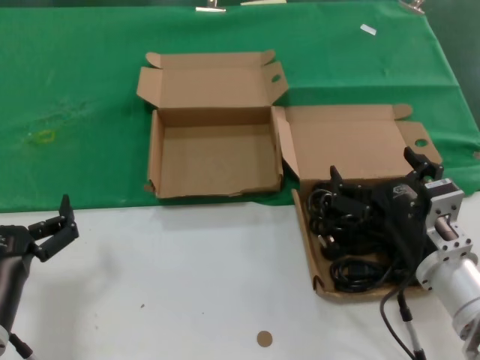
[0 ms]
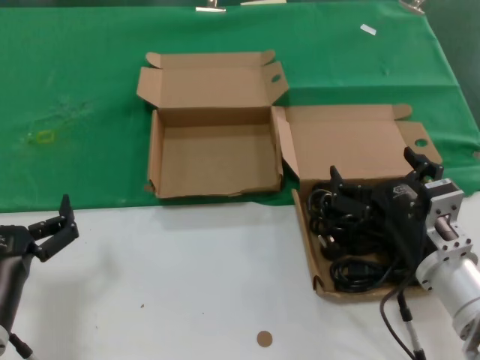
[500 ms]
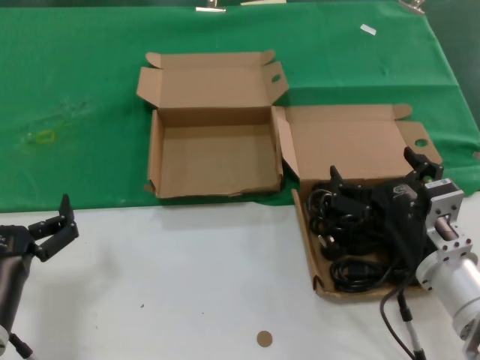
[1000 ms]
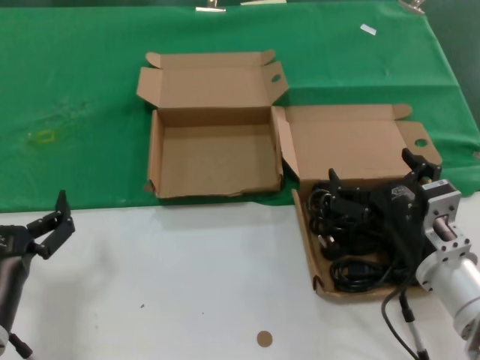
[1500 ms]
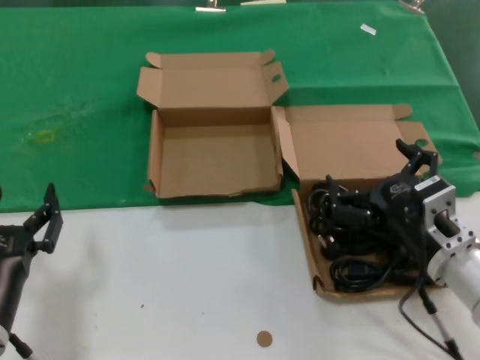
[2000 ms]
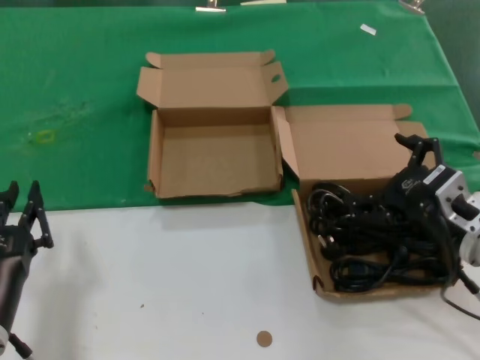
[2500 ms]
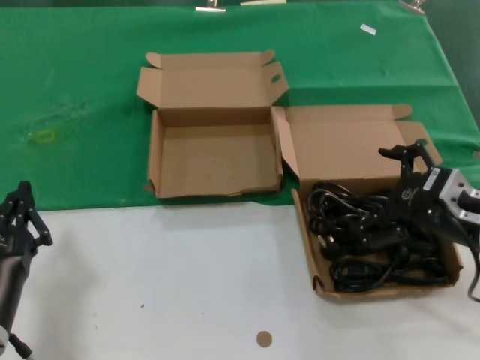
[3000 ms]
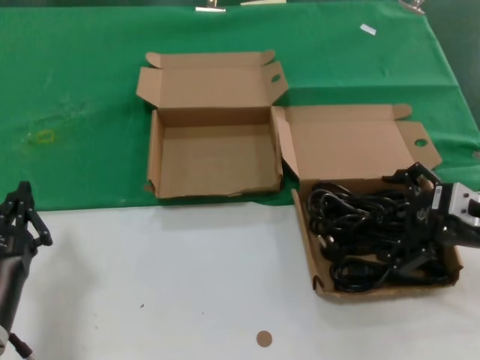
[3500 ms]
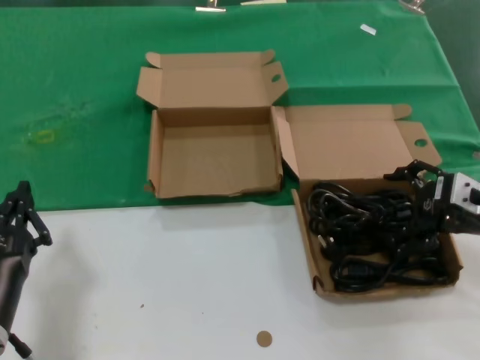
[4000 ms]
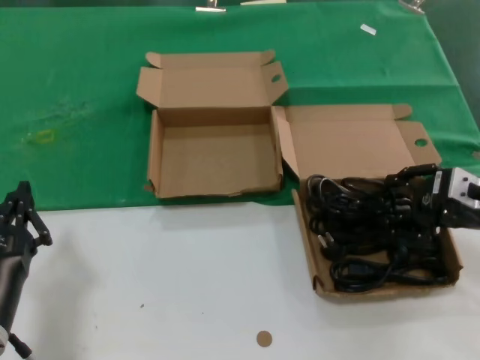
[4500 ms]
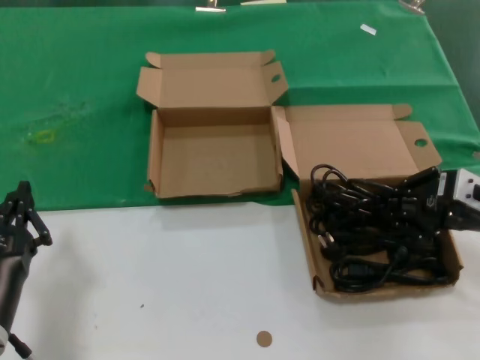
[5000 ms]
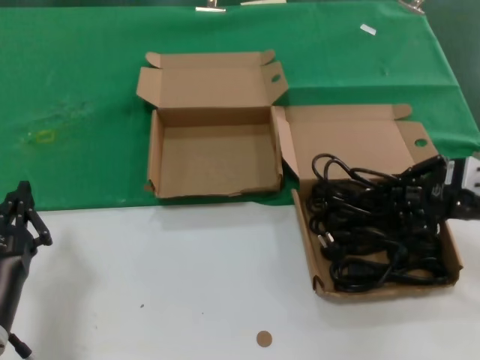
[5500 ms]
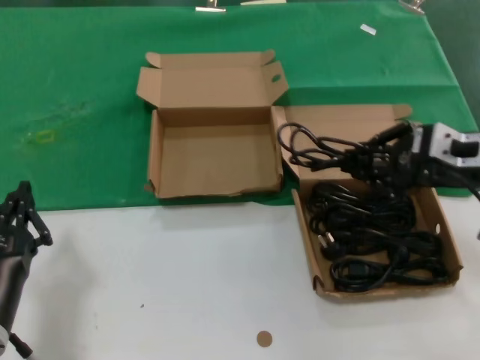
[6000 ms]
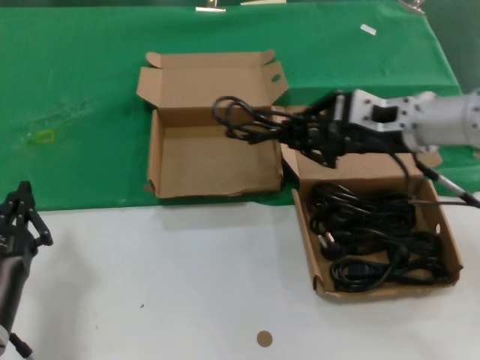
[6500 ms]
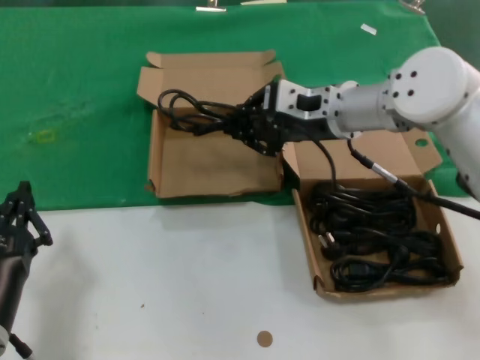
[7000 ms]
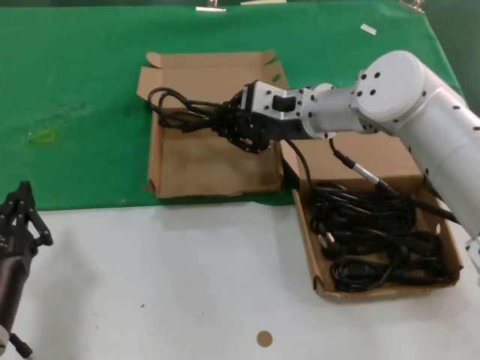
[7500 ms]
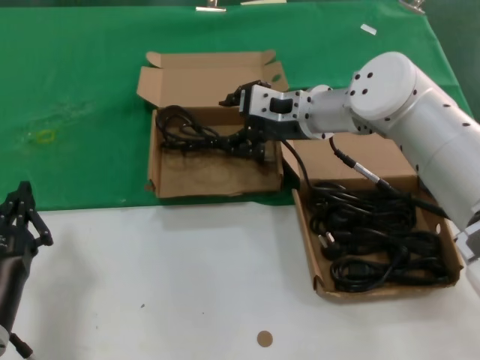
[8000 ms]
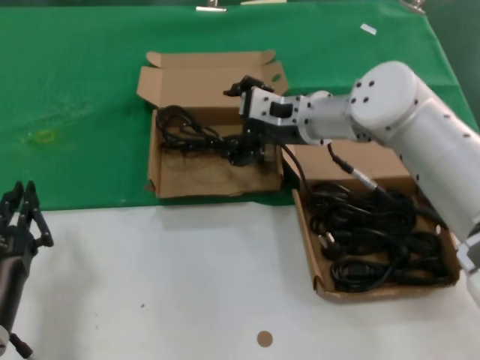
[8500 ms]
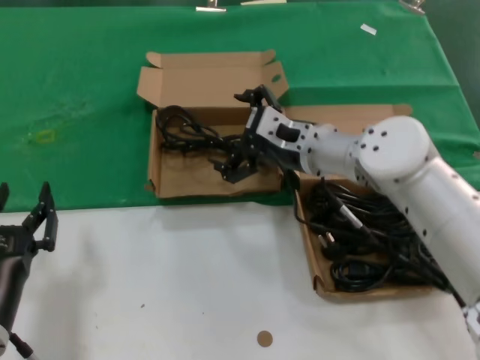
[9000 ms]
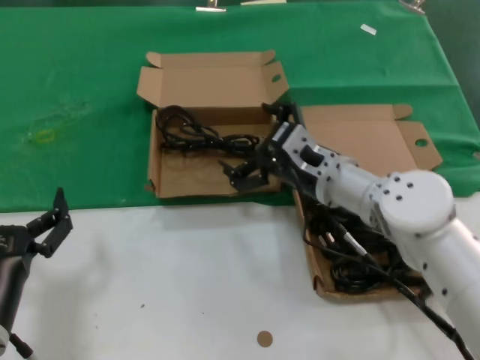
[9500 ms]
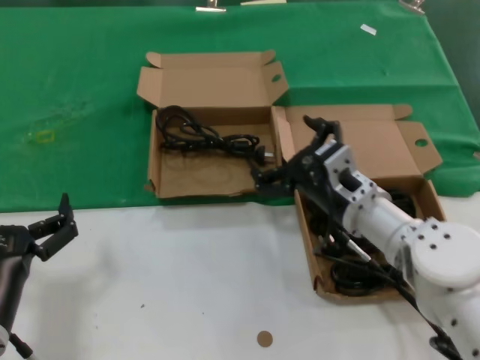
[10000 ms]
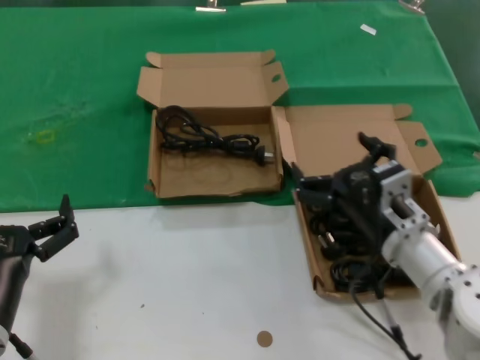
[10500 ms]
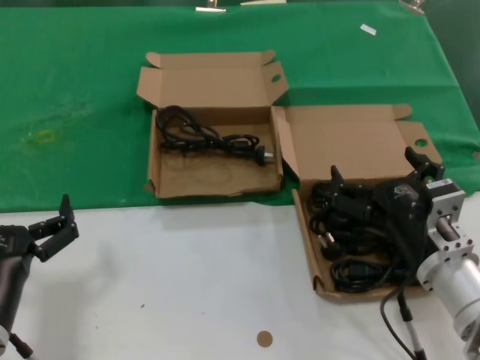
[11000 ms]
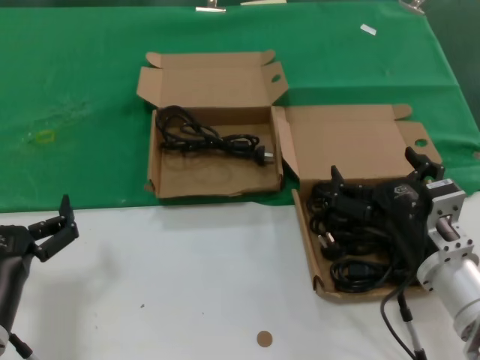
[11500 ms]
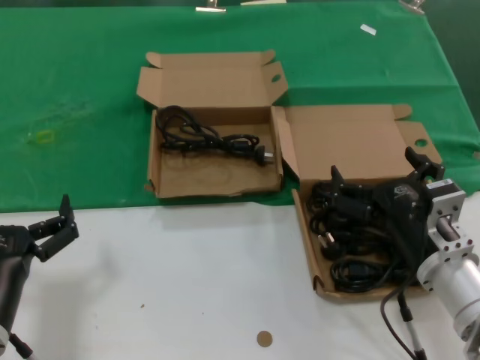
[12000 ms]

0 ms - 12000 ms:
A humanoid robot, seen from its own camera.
Task of the whole recording: take the parts from the box containing them and put them into an empty box.
Step, 0 ms - 4500 ms: Grasp the data cable.
Step, 5000 ms - 7500 ms: Place the data cable in the another box.
0 ms - 2000 ms: There are only small adjustments of the hands.
2000 ms - 4000 ms: The right hand goes some 15 cm to the right, forward and upward.
4000 ms - 6000 ms: The right hand shifts approximately 5 cm upward.
6000 ms - 8000 ms: The right hand heads to the left and forward, covering approximately 25 cm.
8000 ms - 10000 ms: The right hand travels backward and downward by roughly 20 cm.
10000 ms - 12000 ms: The right hand shifts some 10 cm backward and to the right.

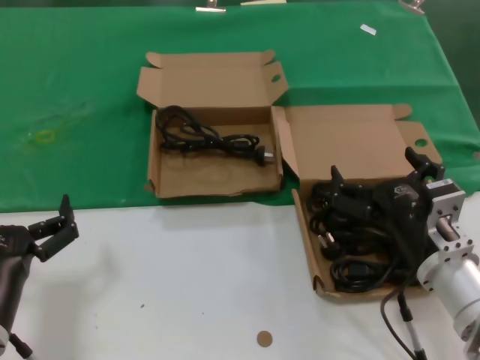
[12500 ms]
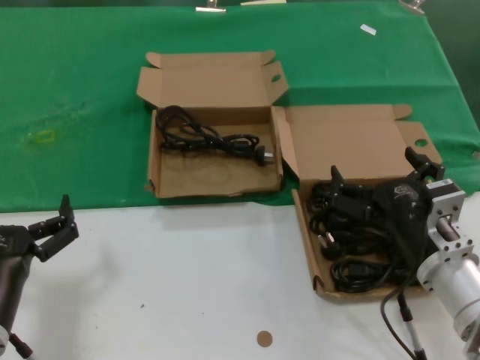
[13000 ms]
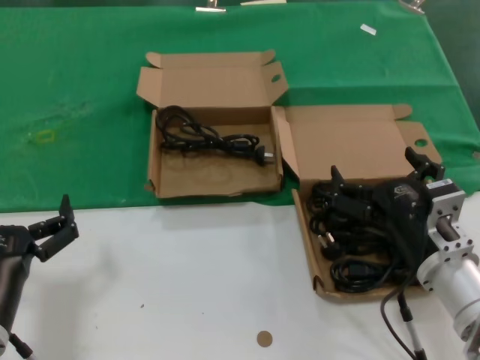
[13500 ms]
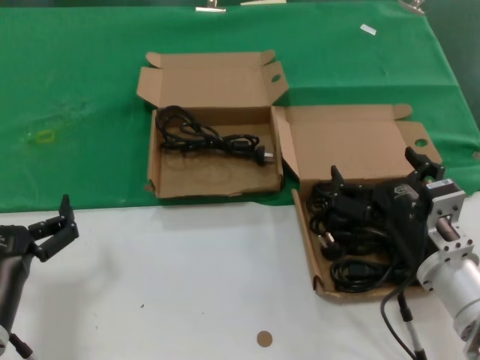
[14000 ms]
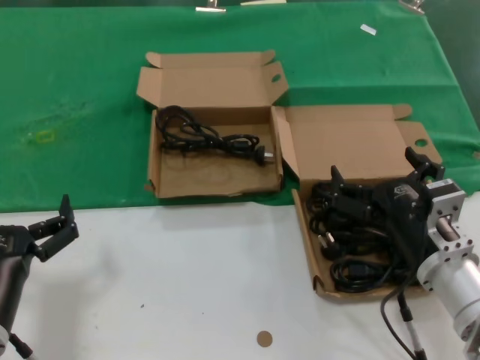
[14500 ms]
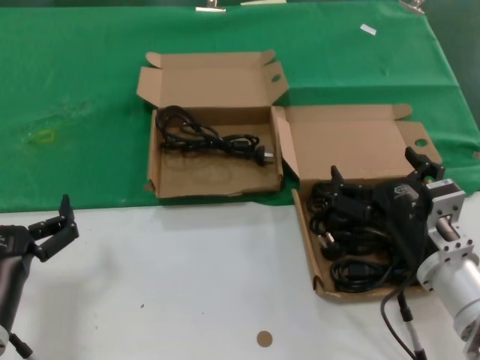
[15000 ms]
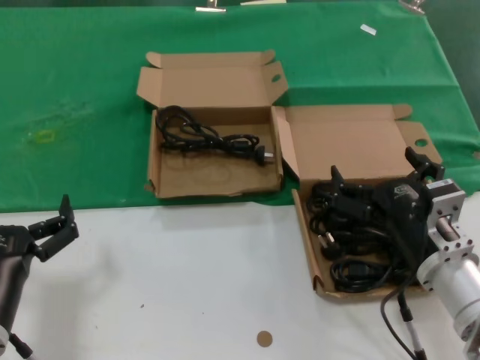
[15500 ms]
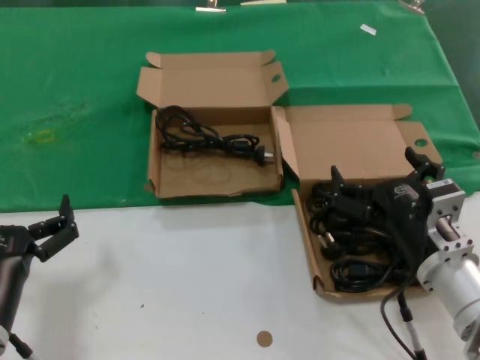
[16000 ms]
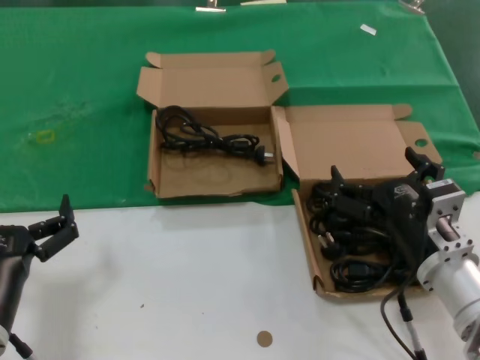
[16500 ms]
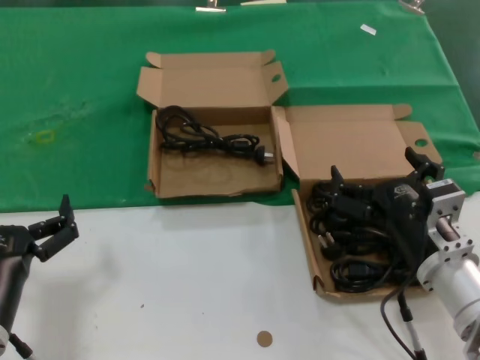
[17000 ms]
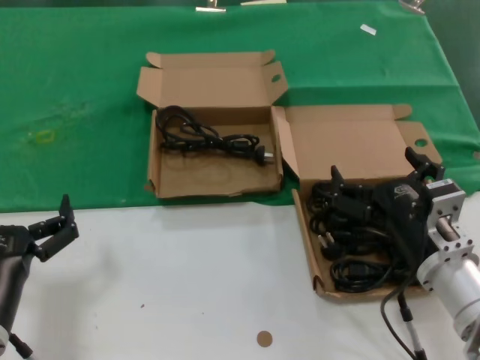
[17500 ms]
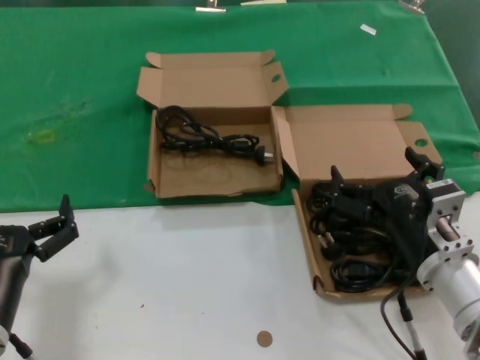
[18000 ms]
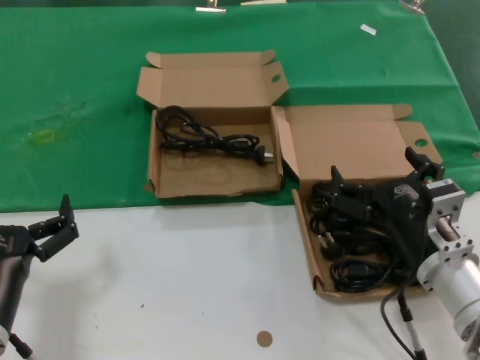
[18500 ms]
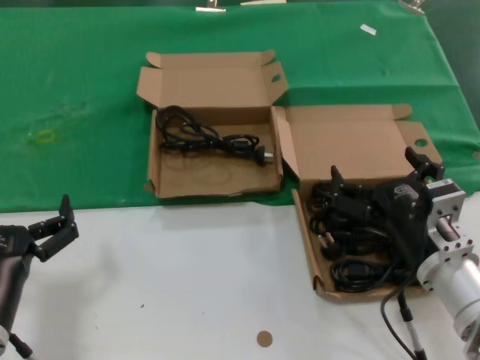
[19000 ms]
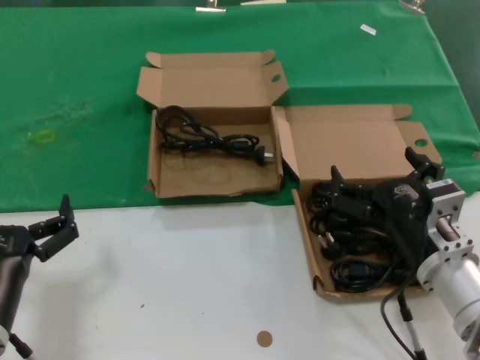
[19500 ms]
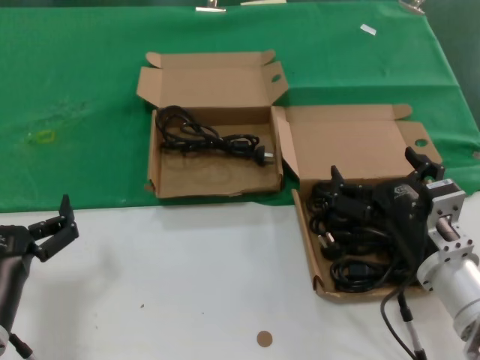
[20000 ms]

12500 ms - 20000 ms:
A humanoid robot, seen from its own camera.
Task of the whole recording: take the parts from the box containing them and put them into an empty box.
12500 ms - 20000 ms: Both hands stay about where they are.

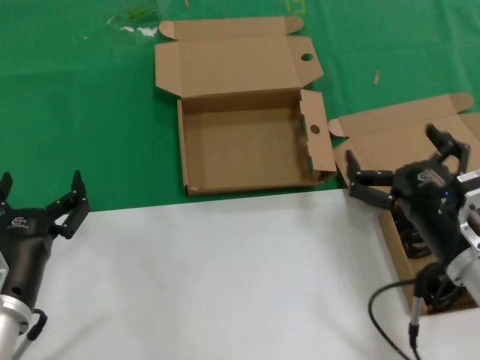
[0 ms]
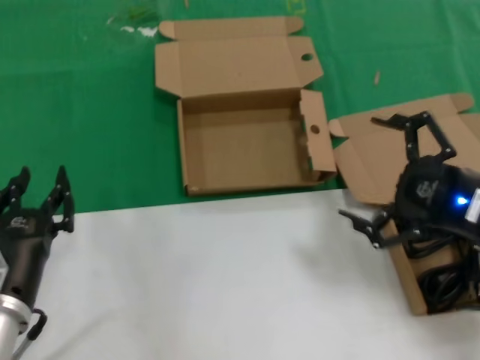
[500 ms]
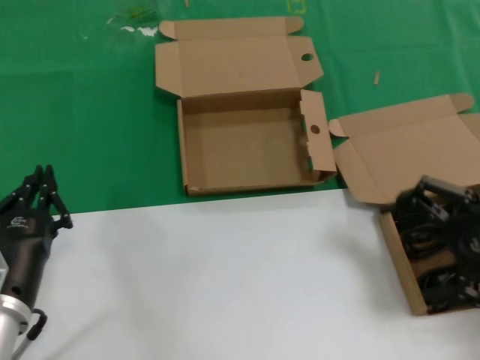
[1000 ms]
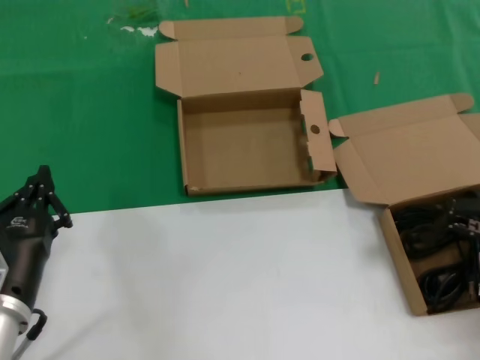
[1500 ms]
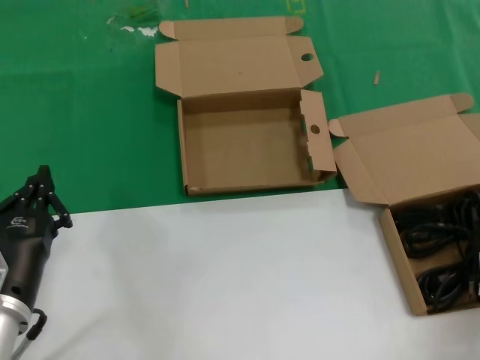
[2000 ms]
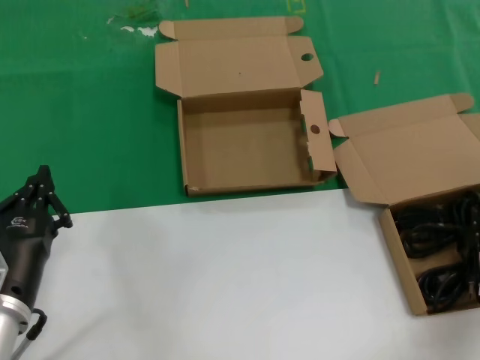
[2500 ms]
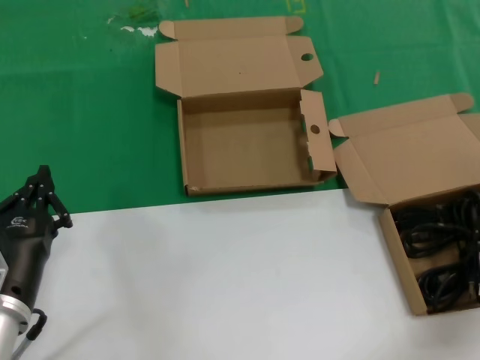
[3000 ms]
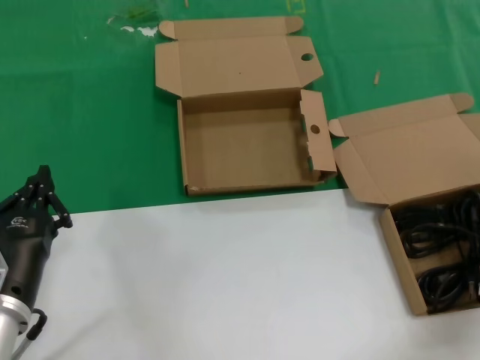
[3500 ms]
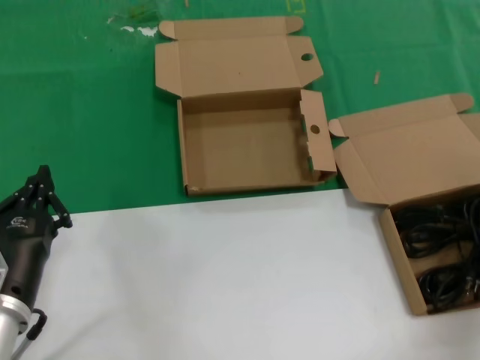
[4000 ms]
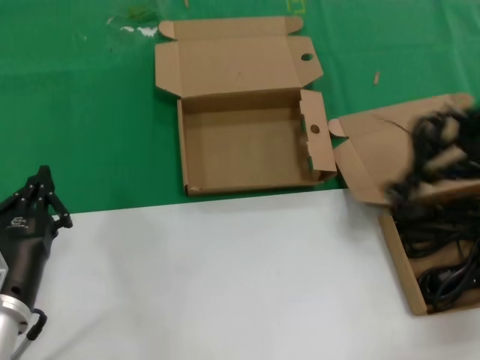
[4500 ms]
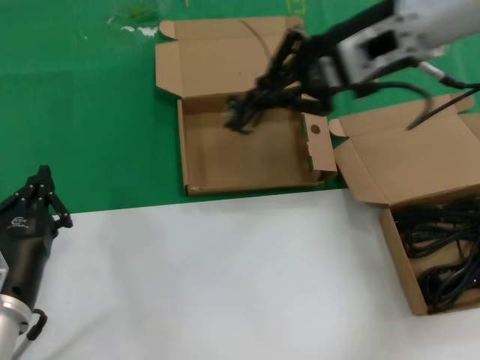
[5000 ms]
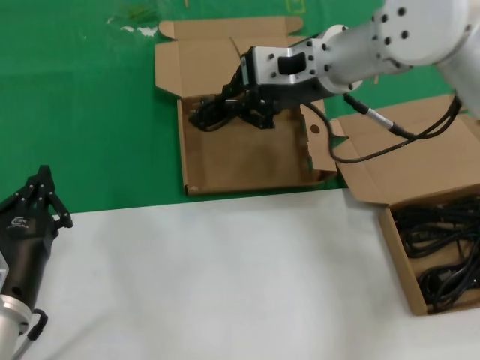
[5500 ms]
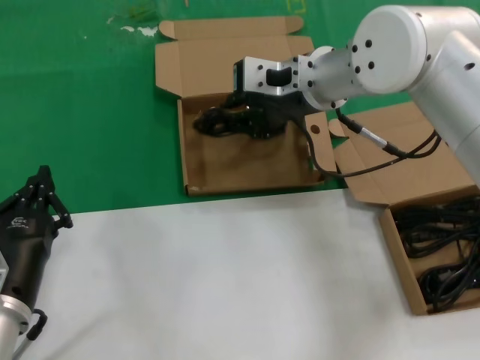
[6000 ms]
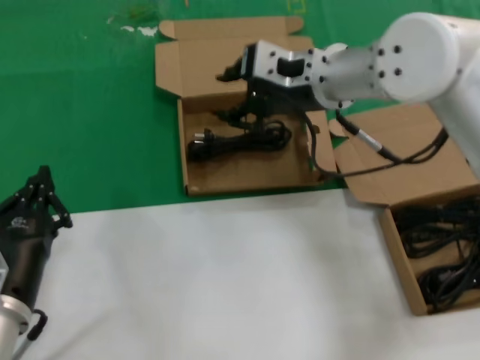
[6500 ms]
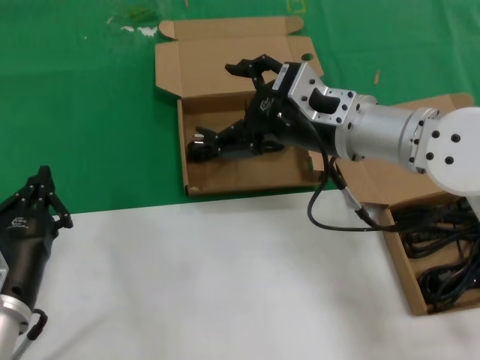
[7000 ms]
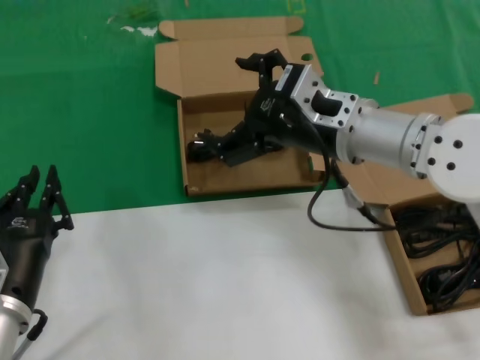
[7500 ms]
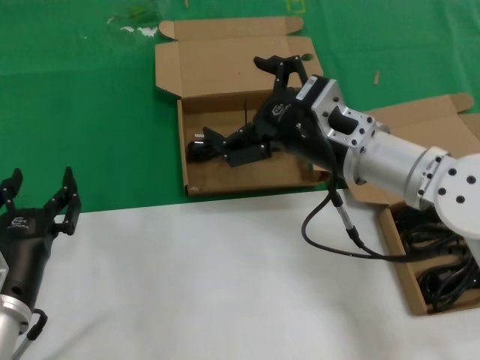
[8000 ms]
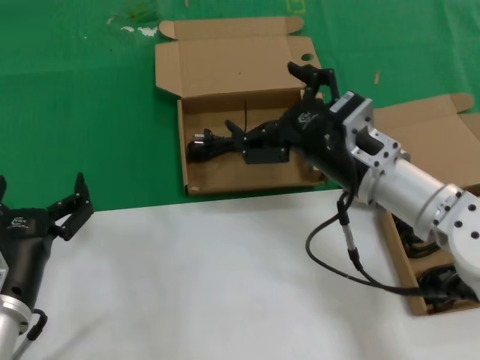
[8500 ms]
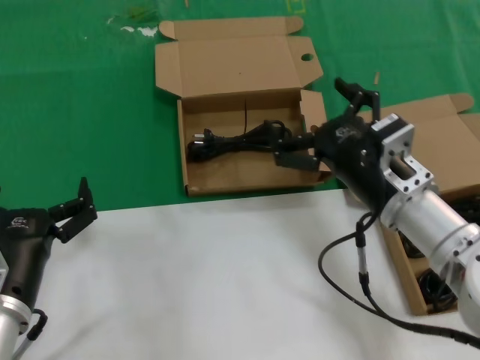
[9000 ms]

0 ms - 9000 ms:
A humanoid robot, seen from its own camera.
Task of the whole recording: take the parts from the box containing them and put them into an empty box.
Step, 0 ms - 2000 ms: Grasp the data cable.
Step, 2500 ms - 6500 ms: Place the data cable in the another box.
0 ms - 2000 ms: The right hand is displaced to the right, upward and forward by roughly 25 cm.
2000 ms - 4500 ms: The right hand shifts roughly 15 cm upward and to the left.
4500 ms - 7000 ms: The right hand is displaced to the left and downward by roughly 25 cm.
7000 ms - 9000 ms: The right hand travels downward and backward by approximately 10 cm.